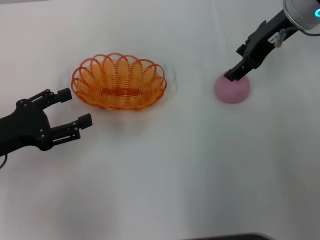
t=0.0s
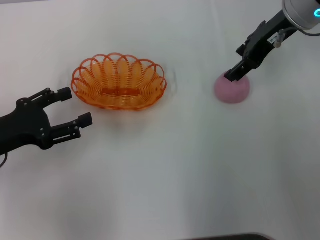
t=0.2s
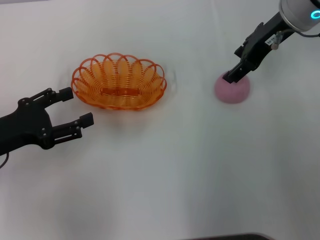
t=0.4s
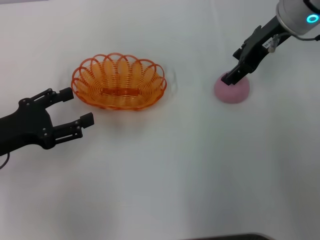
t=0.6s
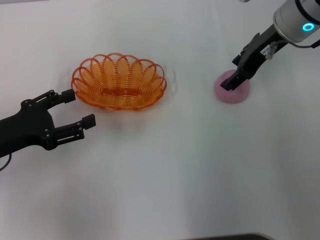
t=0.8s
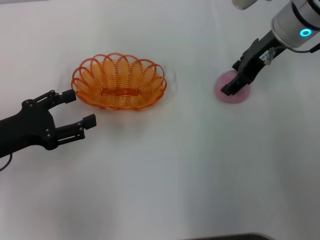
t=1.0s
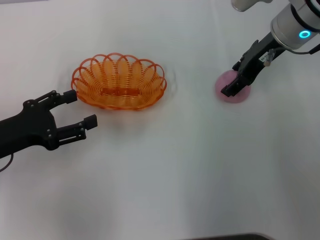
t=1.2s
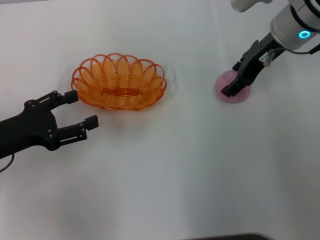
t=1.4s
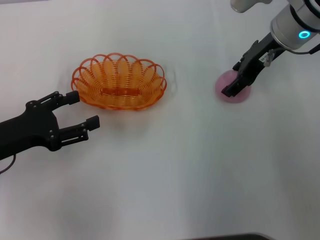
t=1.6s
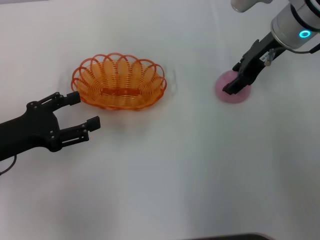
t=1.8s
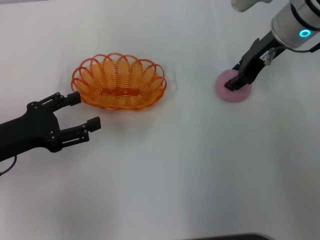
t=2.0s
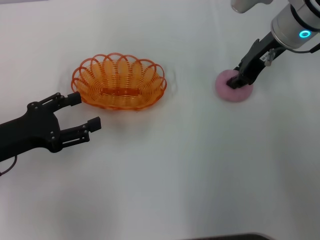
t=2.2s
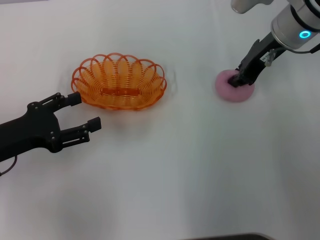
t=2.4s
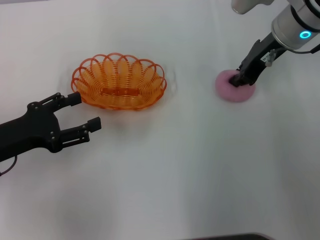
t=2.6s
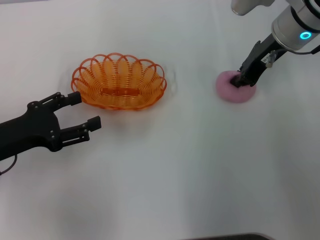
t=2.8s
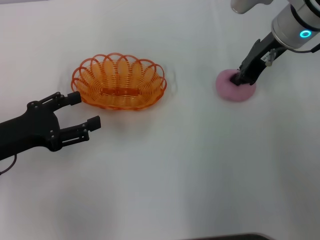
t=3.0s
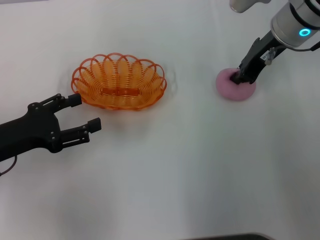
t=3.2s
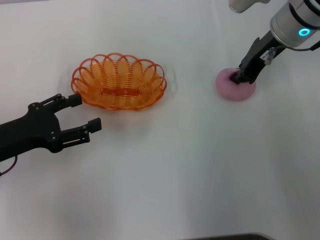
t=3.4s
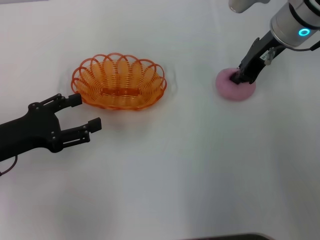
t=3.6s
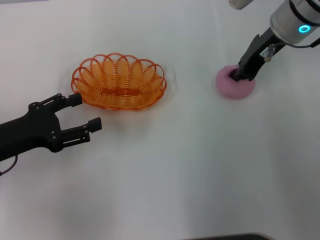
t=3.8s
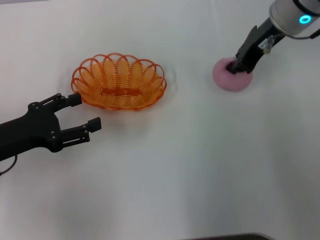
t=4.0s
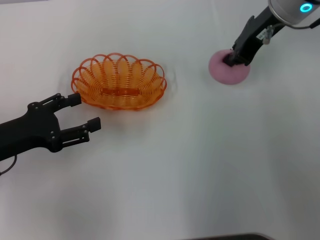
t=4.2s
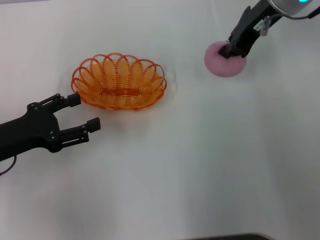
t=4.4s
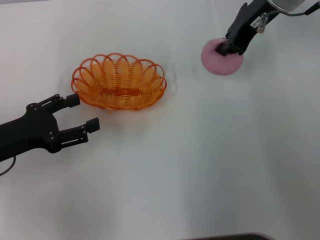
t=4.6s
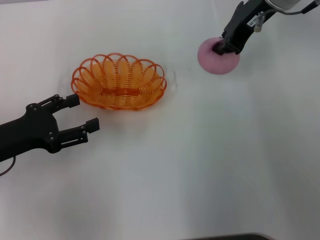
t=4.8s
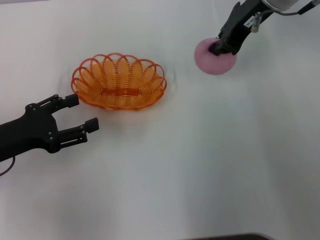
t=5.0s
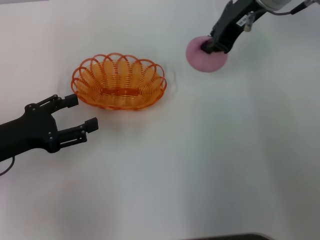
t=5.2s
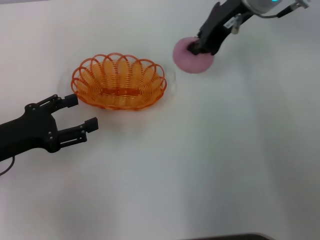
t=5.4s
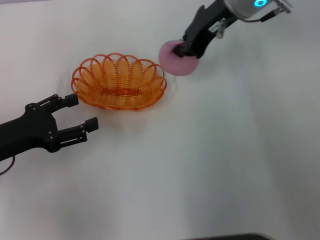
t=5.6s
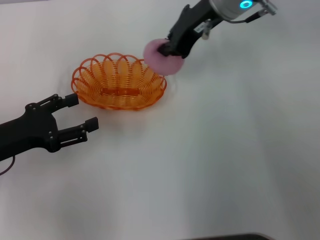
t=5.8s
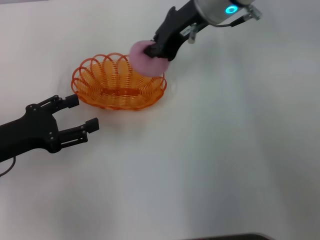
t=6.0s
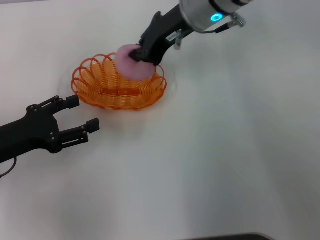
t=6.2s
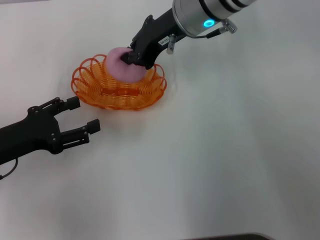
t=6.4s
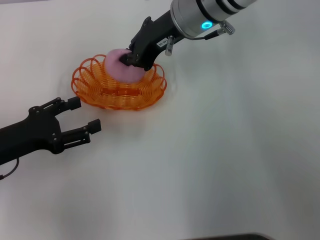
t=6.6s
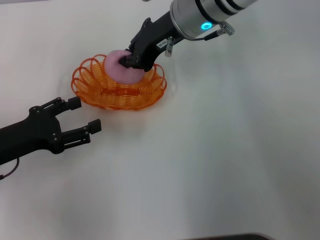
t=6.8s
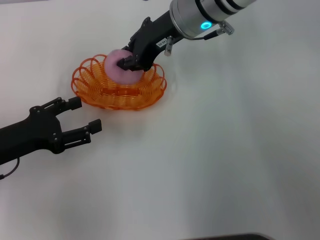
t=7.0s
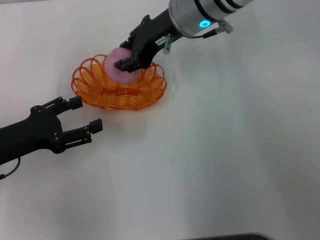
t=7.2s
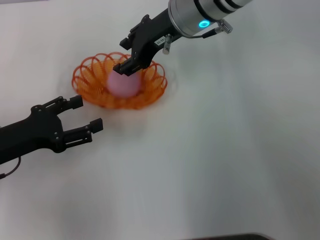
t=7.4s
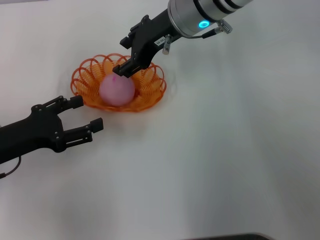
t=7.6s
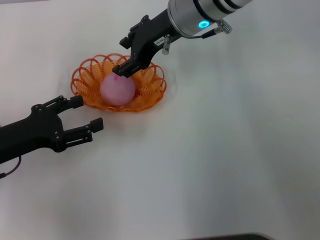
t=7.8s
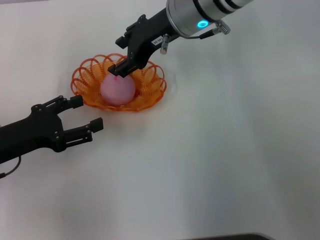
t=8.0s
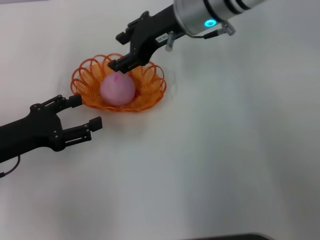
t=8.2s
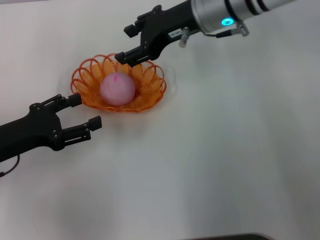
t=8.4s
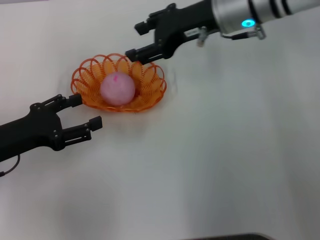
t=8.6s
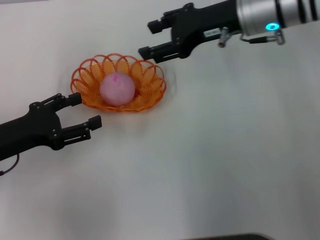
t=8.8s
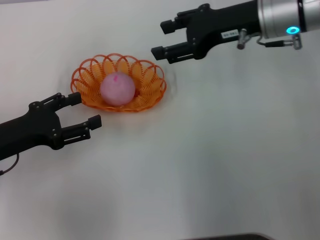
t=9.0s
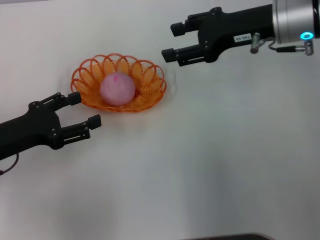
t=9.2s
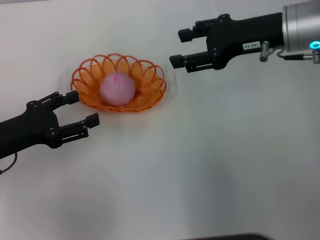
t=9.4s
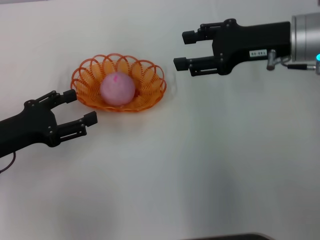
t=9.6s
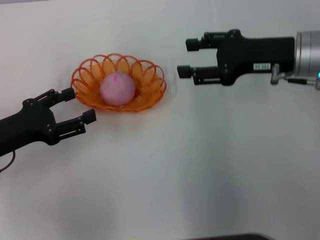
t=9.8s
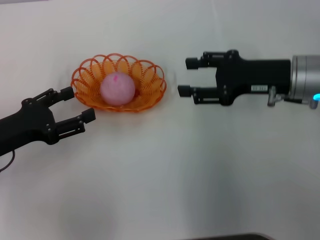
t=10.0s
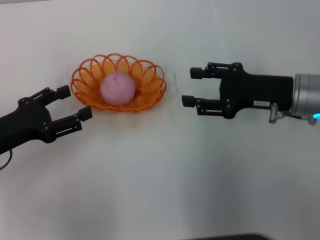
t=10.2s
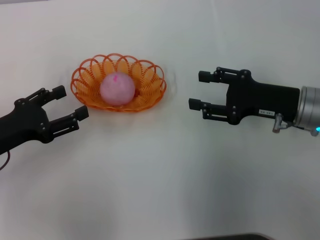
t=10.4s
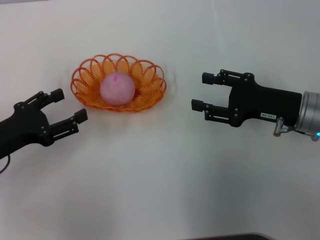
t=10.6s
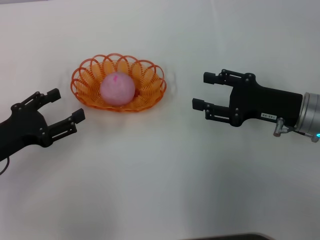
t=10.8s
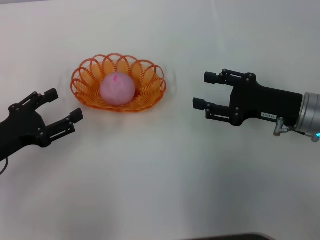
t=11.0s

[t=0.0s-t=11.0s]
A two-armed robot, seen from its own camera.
Step, t=0.0s to t=4.4s: Pick up the peach with the right gripper.
Step, t=4.6s to t=10.0s: Place the peach into the basket with the right gripper.
t=0.0s to t=1.6s: The grippers stay close to where they were, moving slightly.
t=1.6s to t=3.2s: The right gripper closes up.
t=3.2s to t=4.8s: The right gripper heads upward, covering about 5 cm.
t=4.8s to t=6.2s: The right gripper moves to the left, approximately 10 cm.
t=6.2s to t=7.8s: The right gripper opens its fingers.
t=7.8s to t=9.4s: The right gripper moves to the right, about 15 cm.
t=9.4s to t=11.0s: The right gripper is displaced downward and backward by approximately 15 cm.
